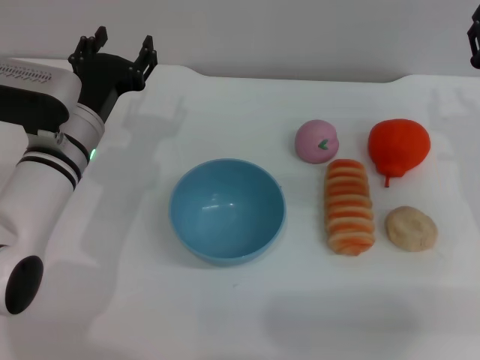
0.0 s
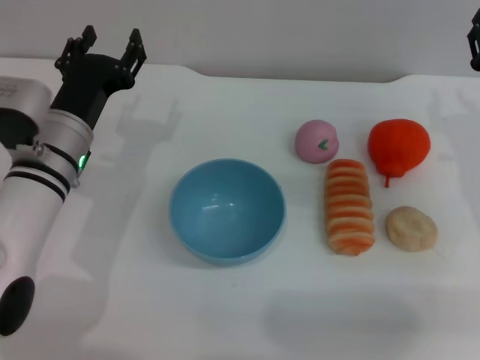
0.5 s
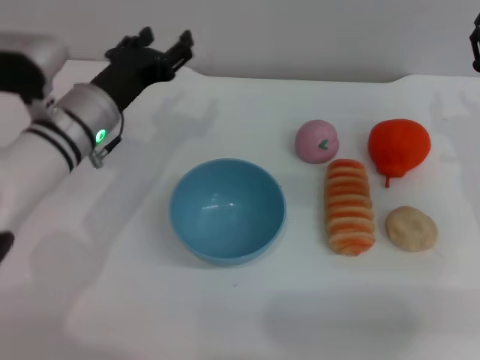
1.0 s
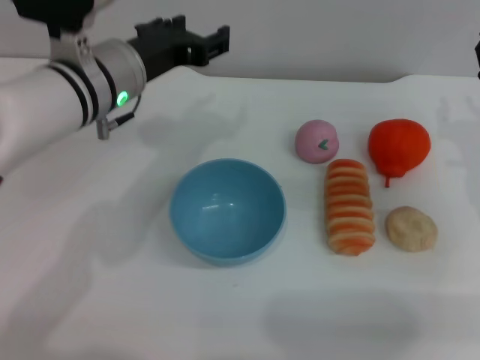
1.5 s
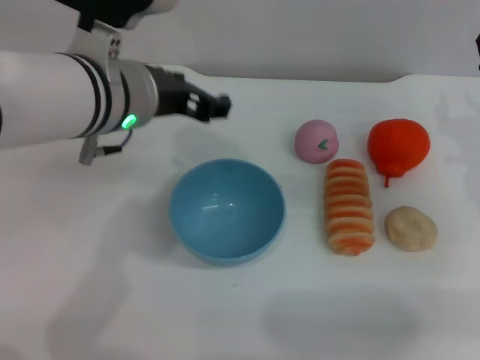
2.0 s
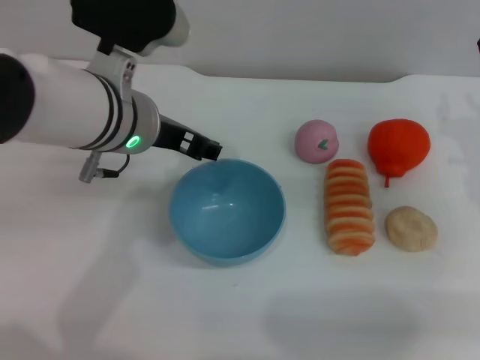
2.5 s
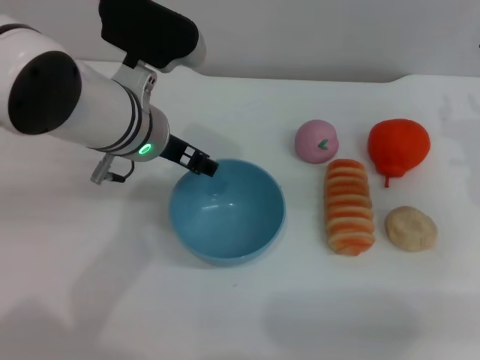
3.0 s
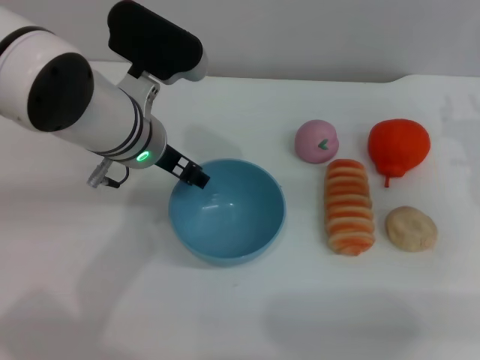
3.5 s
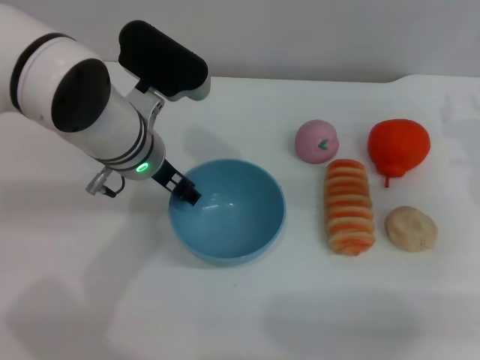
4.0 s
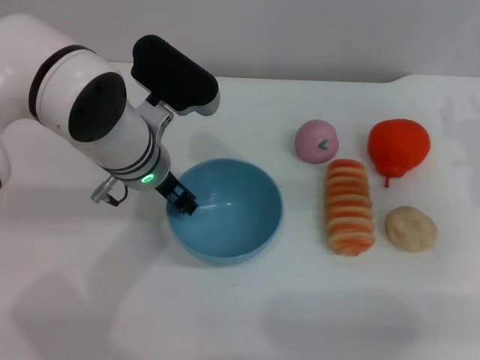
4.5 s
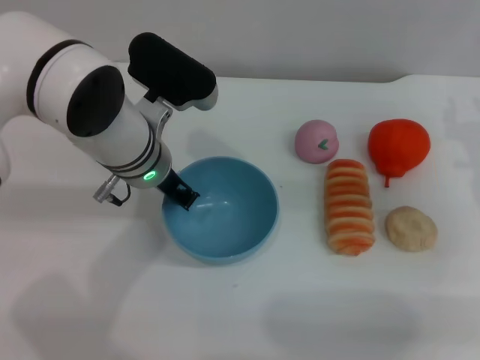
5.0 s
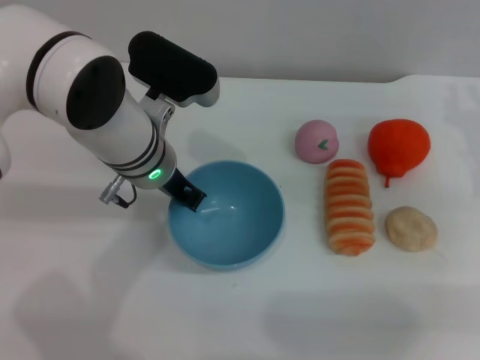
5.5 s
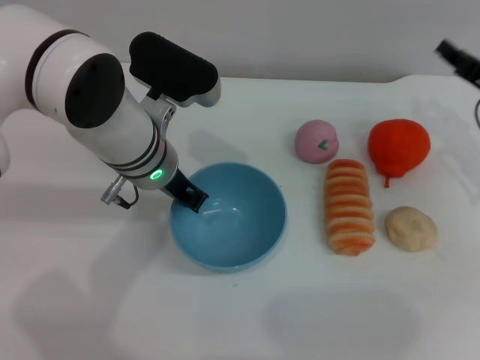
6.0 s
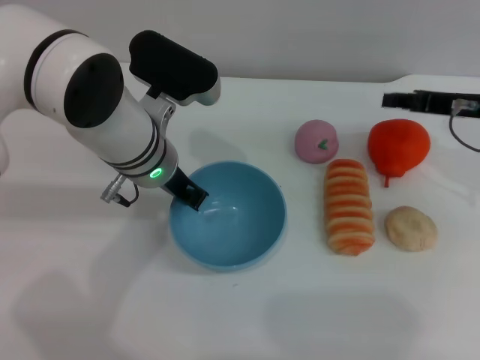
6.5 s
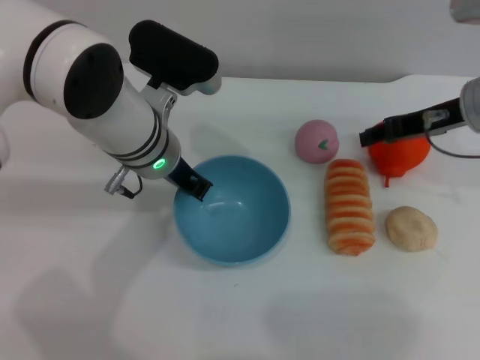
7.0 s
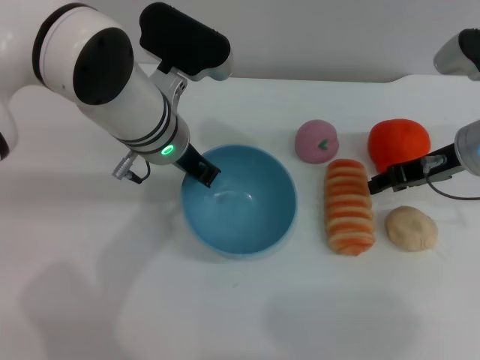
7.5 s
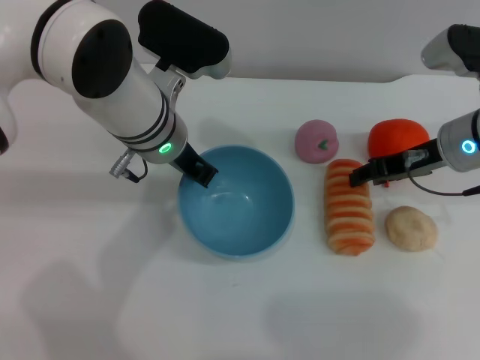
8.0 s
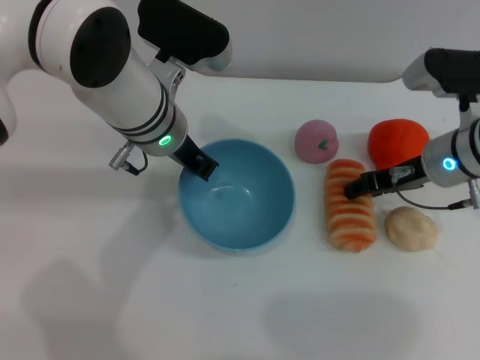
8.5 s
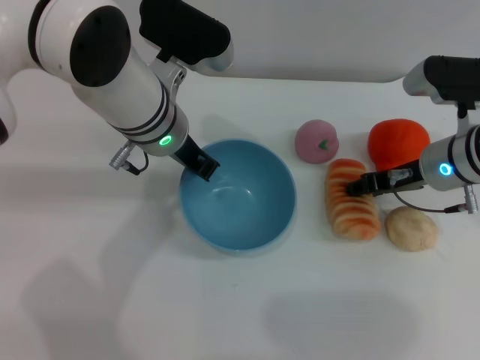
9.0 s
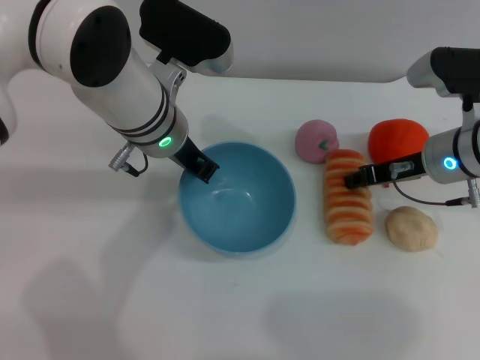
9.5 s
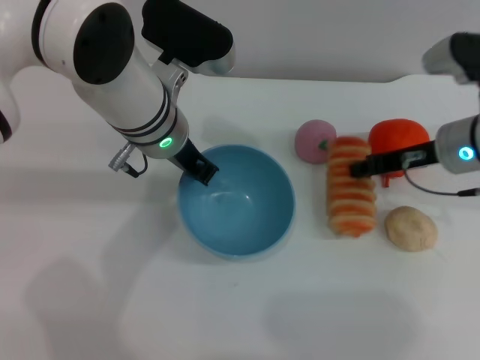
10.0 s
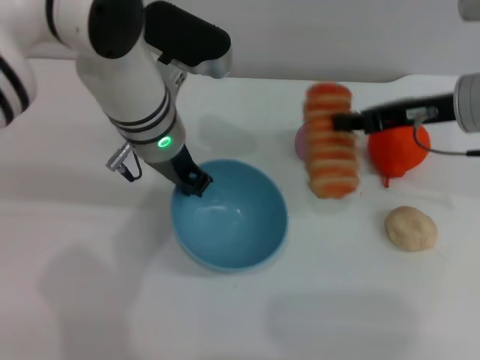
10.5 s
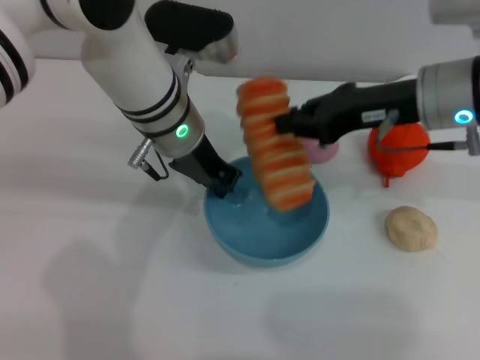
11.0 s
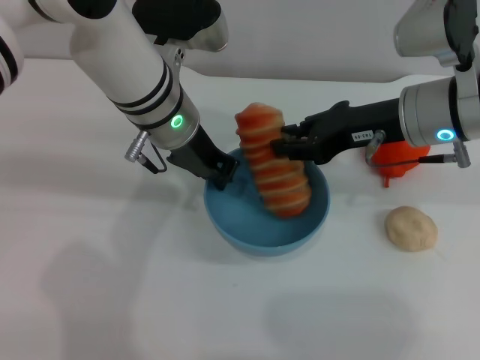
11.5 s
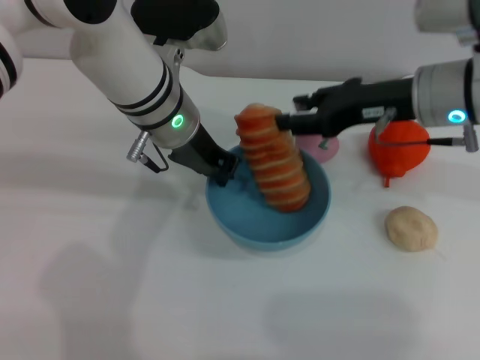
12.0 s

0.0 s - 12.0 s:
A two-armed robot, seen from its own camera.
Task of the whole recording: put the bread into the blue bowl and pour it out repeatedly.
Step, 0.0 s - 8.0 s: Pick up the bowl with the left gripper.
Step, 8.5 s - 10.0 s: Pick up the bread with the right gripper.
0.0 s - 2.0 s: The left gripper goes about 15 cm upward and to the right.
2.0 s - 4.0 s: The left gripper shifts about 10 cm downward.
4.0 s - 6.0 s: The left gripper closes.
6.0 s - 8.0 s: The right gripper shifts about 10 cm to the left.
8.0 s - 10.0 s: The right gripper closes its fingers.
10.0 s - 12.0 s: The right gripper moves upward, about 5 cm, and opens.

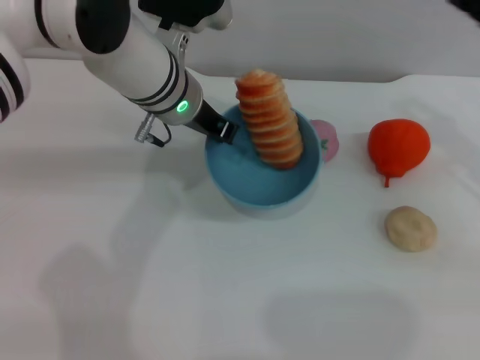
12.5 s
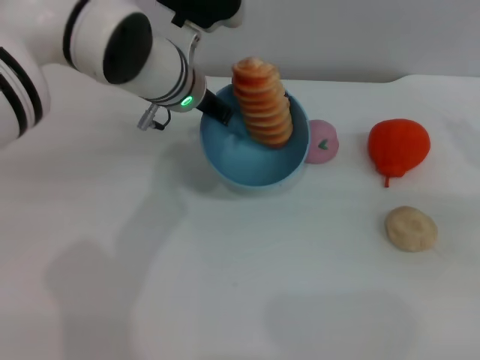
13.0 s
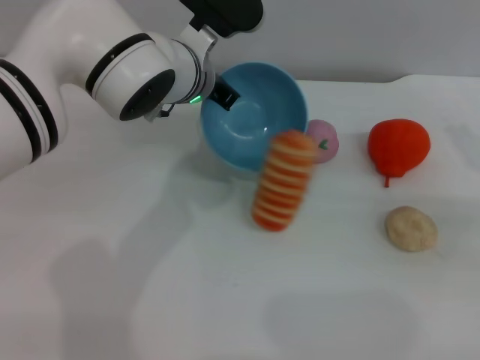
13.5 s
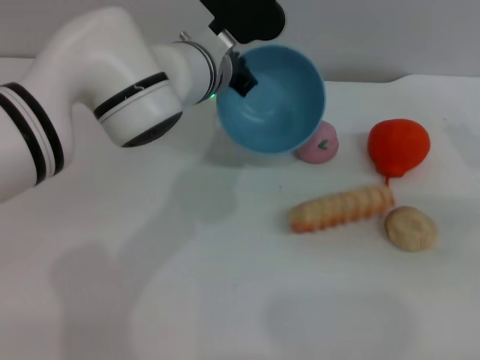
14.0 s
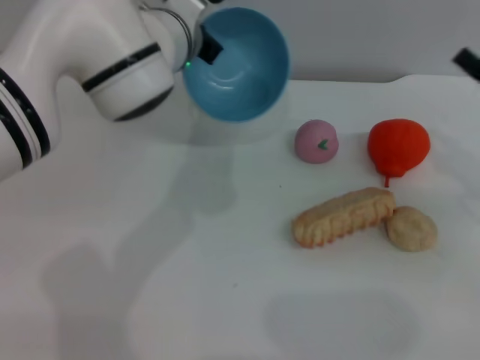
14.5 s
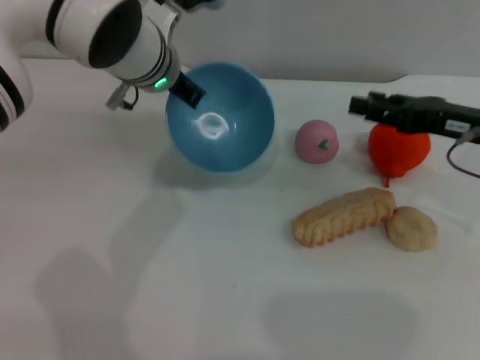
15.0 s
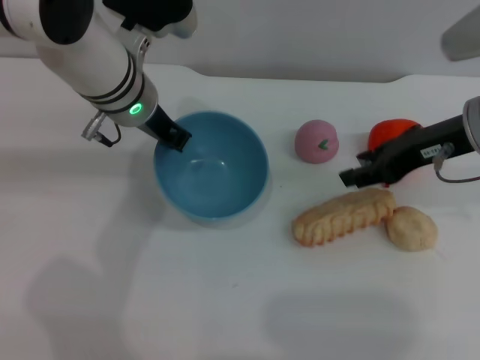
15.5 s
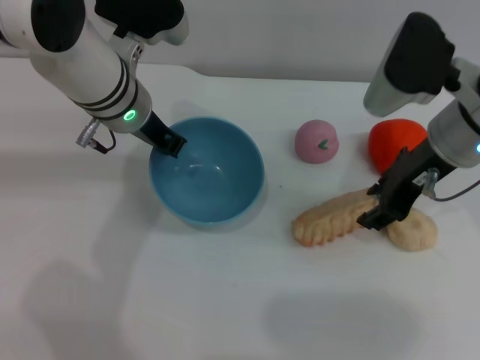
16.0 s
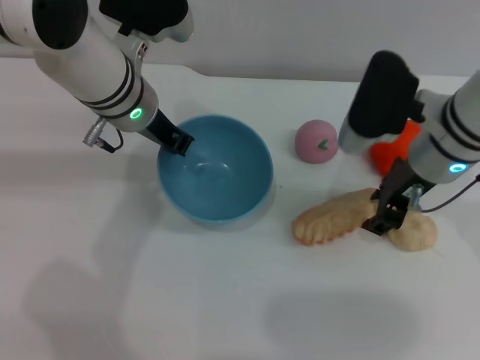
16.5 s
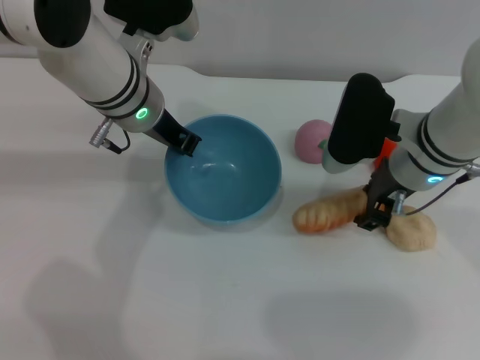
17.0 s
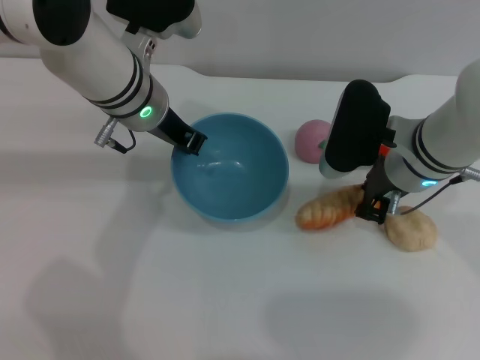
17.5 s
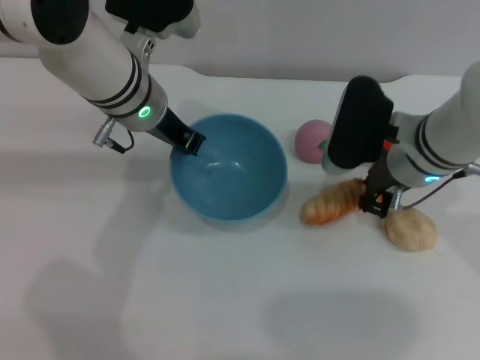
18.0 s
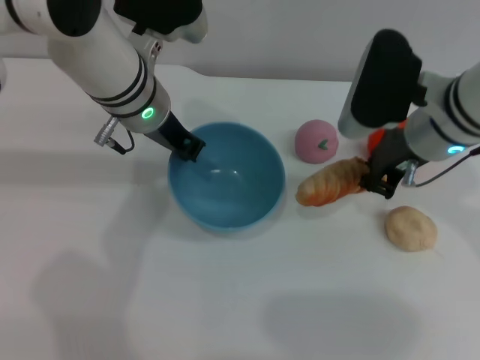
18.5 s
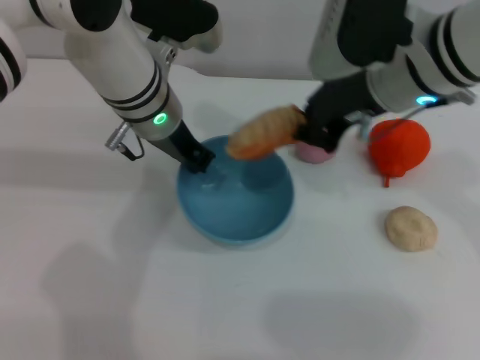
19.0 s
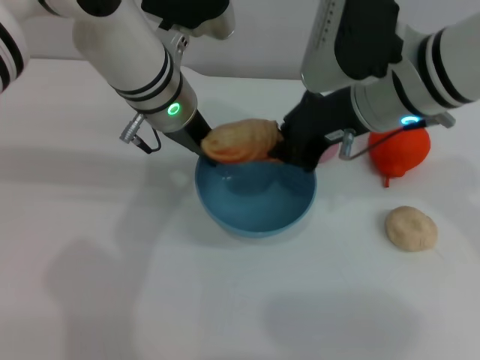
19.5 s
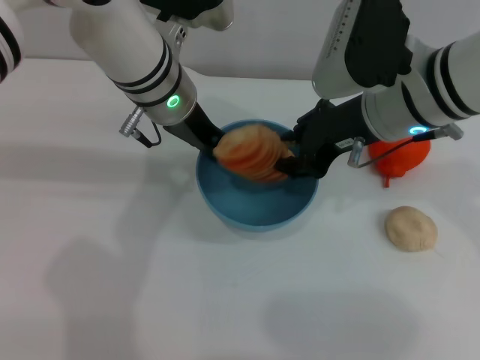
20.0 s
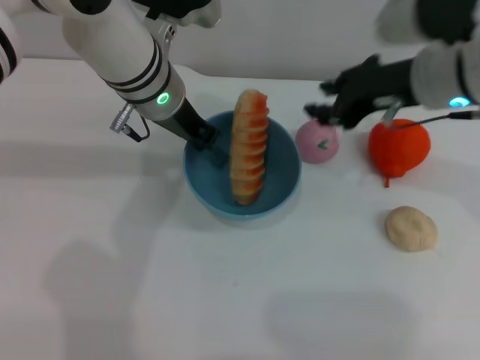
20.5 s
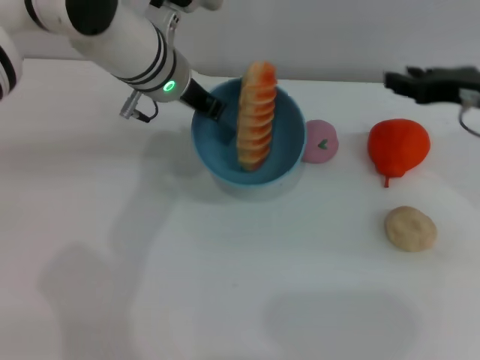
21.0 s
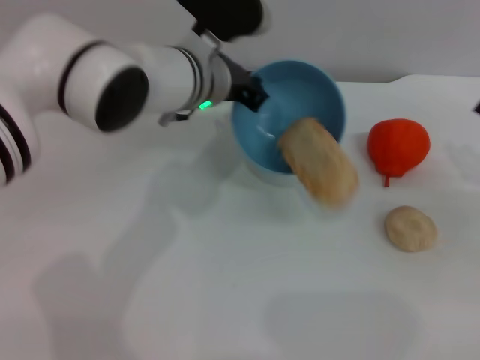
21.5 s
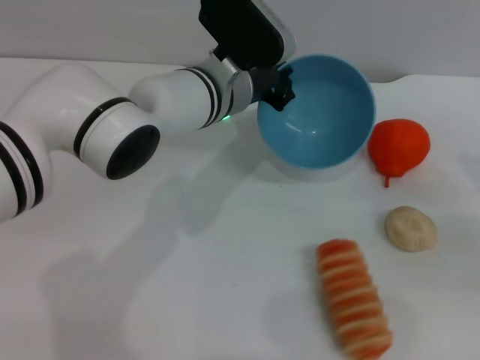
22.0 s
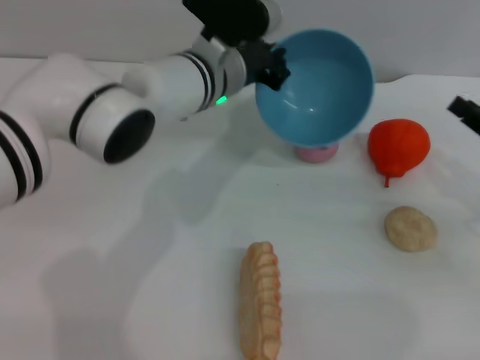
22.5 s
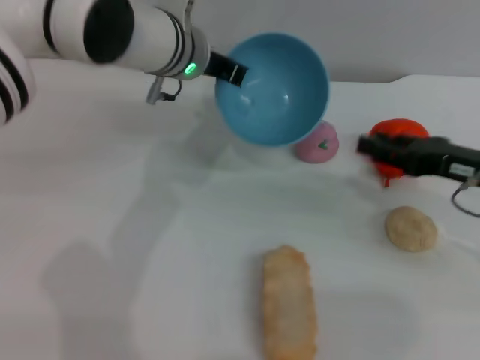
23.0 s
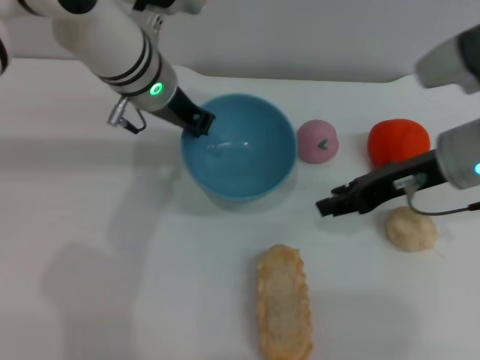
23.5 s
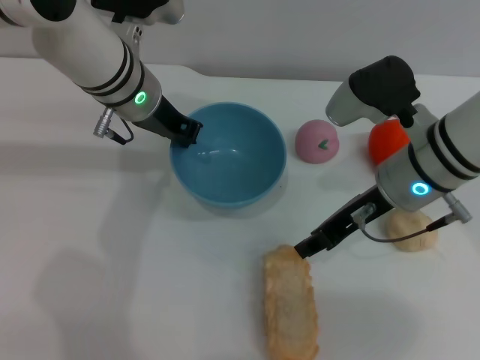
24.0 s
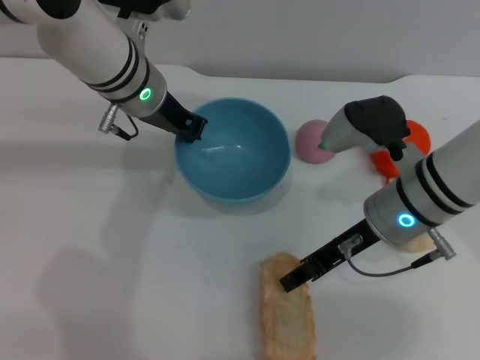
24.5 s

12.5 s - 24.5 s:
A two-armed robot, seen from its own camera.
Task of the whole recording: put the bread into the blue bowl and pour it out repeatedly.
Step, 12.5 s - 14.0 s: Pour the bread out of the bowl.
Step, 14.5 s - 18.5 s: Pick up the bread with the right gripper.
Step, 19.0 s - 20.0 s: Place the bread into the bowl.
Step, 20.5 s - 21.5 s: Pour the bread out of the bowl.
12.5 s - 14.5 s: The right gripper moves downward, some 5 cm.
14.5 s - 16.5 s: The right gripper goes roughly 15 cm to the left; the left gripper shifts approximately 5 cm to the left.
16.5 s - 18.5 s: The right gripper closes.
18.5 s - 20.5 s: The right gripper opens.
20.5 s - 22.5 s: The left gripper ends up roughly 5 cm from where it was. The right gripper goes about 20 cm to the right, downward and backward.
22.5 s - 24.5 s: The right gripper goes some 20 cm to the left; the left gripper travels to the left by roughly 5 cm.

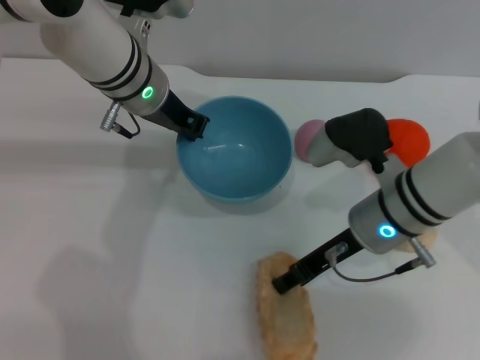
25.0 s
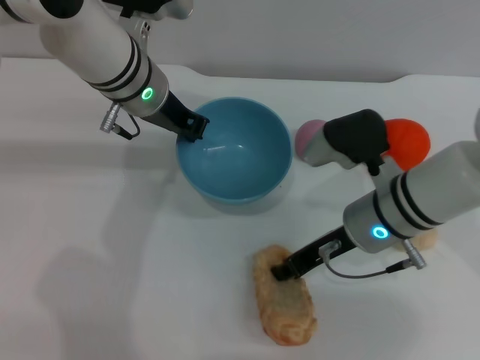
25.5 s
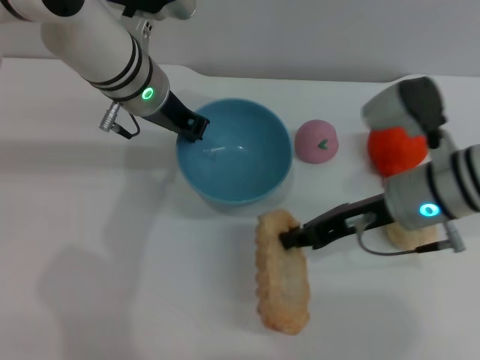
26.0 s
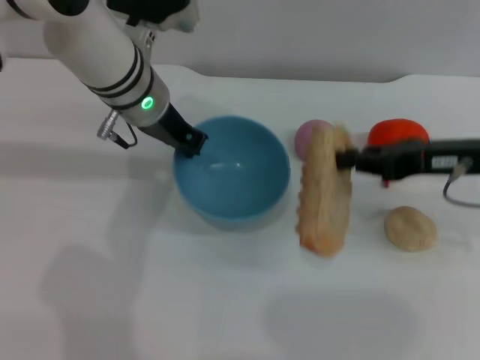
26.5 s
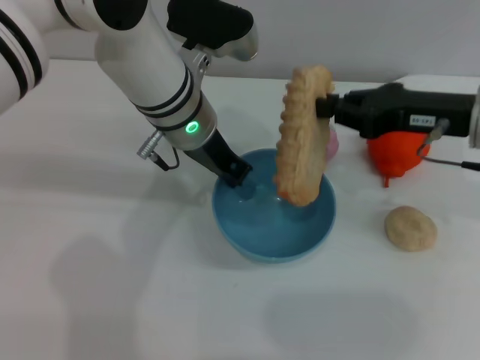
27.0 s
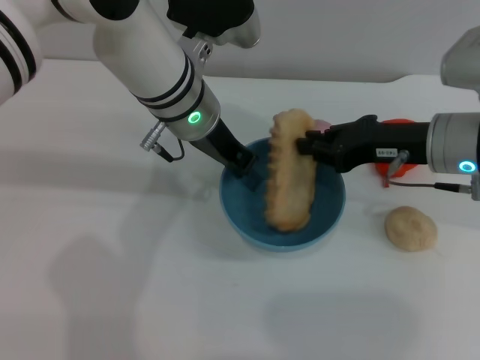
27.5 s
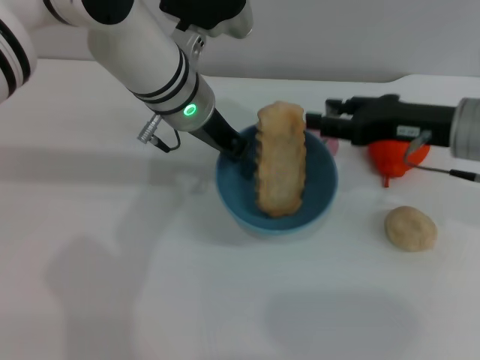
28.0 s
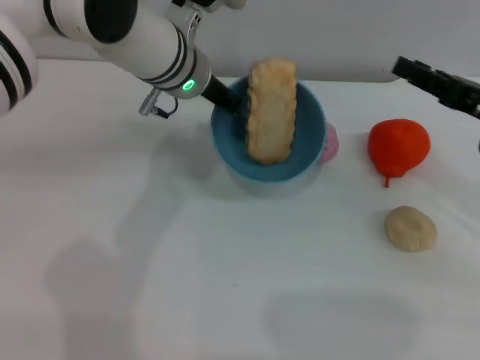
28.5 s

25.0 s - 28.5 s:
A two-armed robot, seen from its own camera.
Task of the whole recording: put the bread into the blue bowl and pour it out repeatedly.
Step, 26.5 s - 28.0 s: Place the bread into the bowl.
25.0 s - 27.0 s: The right gripper travels to the right and upward by about 10 cm, and closes up. Meanwhile the left gripper shifts by roughly 5 cm.
27.0 s - 28.5 s: The right gripper heads to the right, covering some 5 cm, and opens up.
